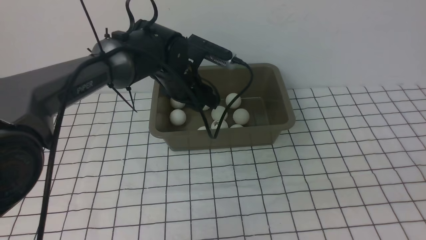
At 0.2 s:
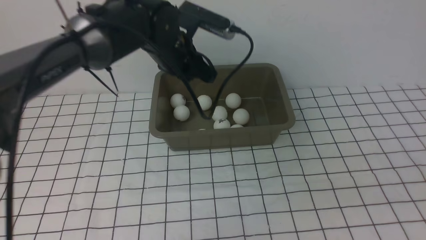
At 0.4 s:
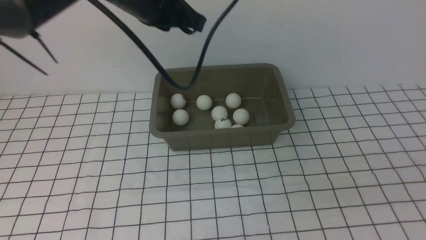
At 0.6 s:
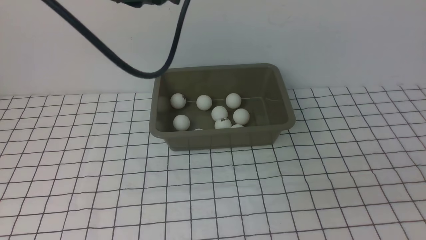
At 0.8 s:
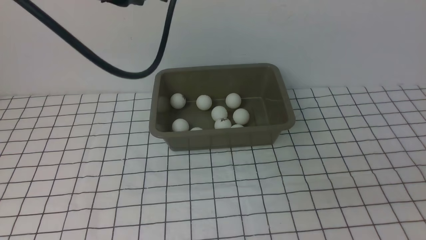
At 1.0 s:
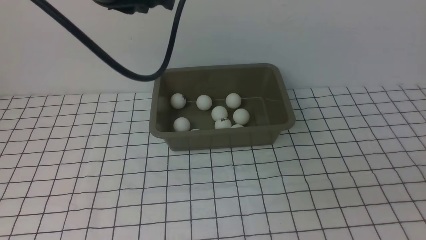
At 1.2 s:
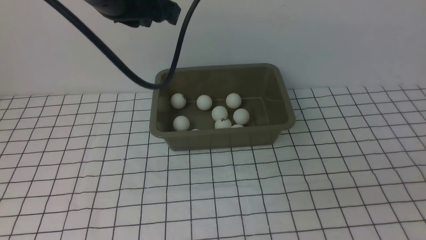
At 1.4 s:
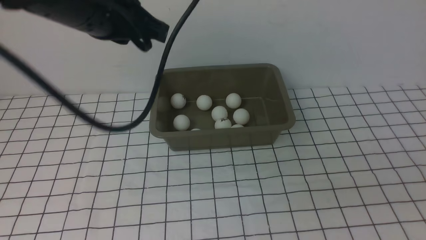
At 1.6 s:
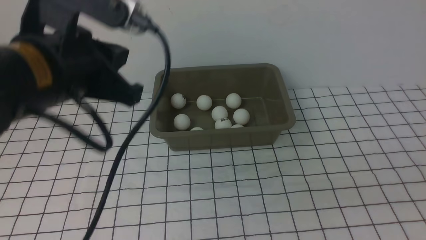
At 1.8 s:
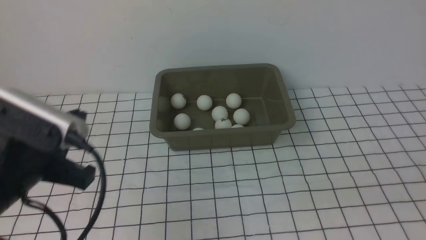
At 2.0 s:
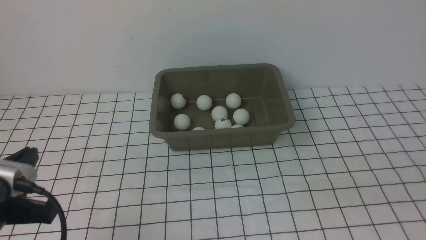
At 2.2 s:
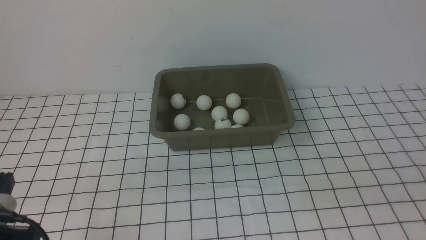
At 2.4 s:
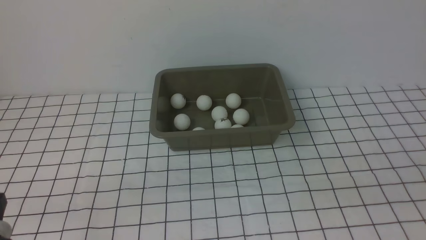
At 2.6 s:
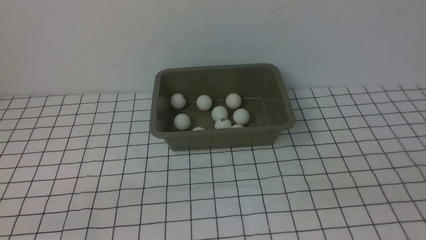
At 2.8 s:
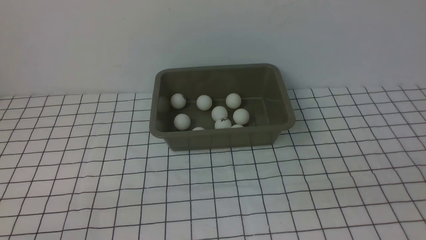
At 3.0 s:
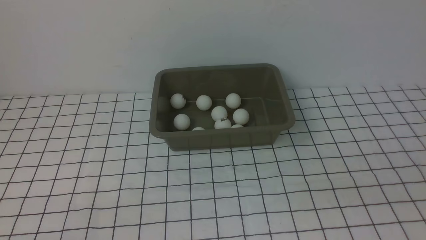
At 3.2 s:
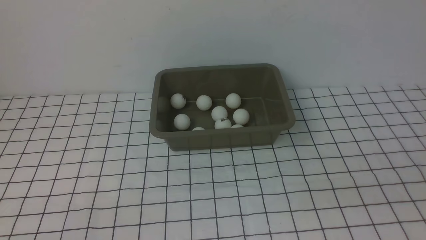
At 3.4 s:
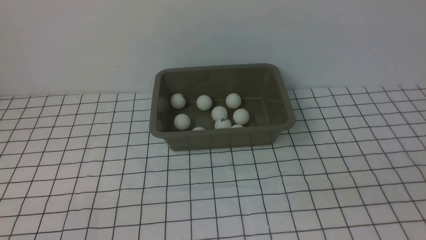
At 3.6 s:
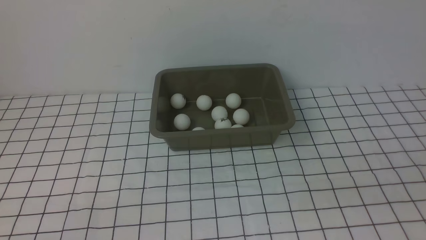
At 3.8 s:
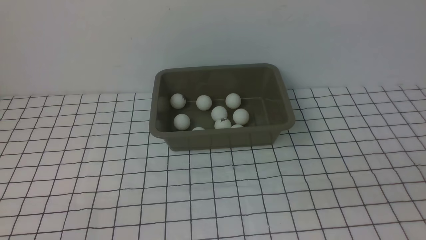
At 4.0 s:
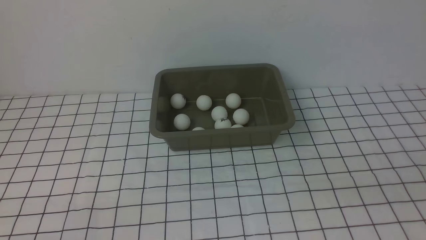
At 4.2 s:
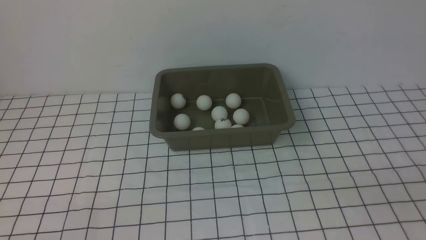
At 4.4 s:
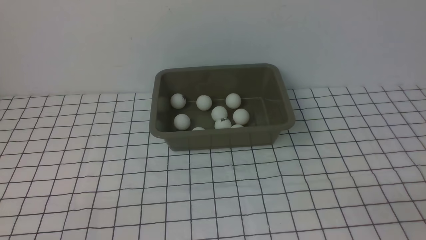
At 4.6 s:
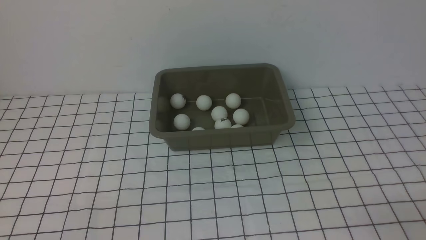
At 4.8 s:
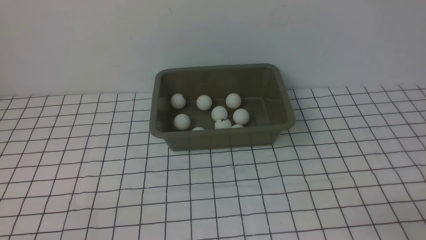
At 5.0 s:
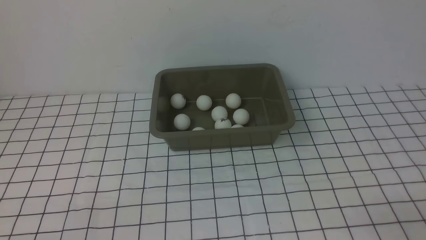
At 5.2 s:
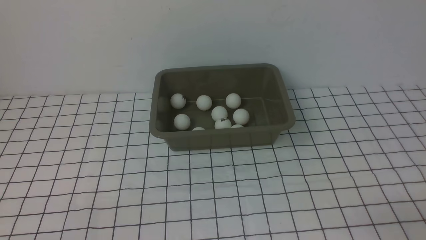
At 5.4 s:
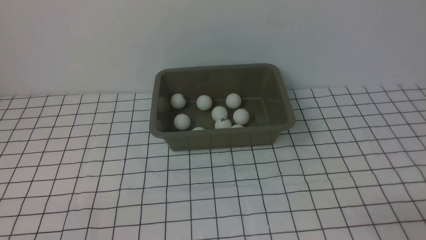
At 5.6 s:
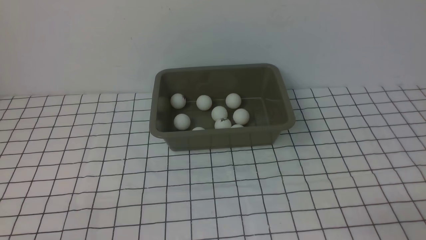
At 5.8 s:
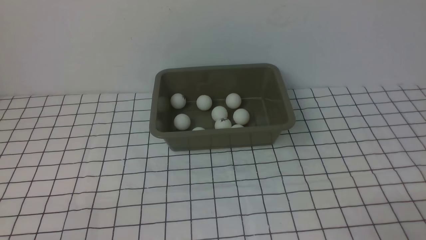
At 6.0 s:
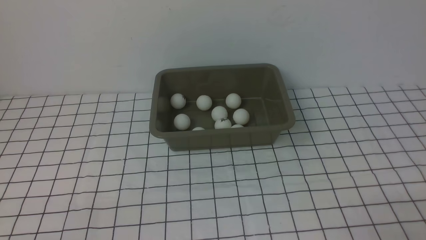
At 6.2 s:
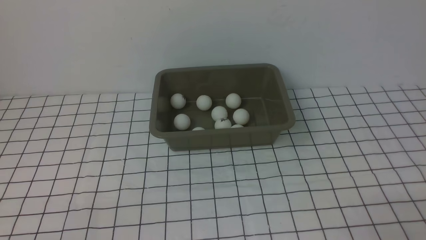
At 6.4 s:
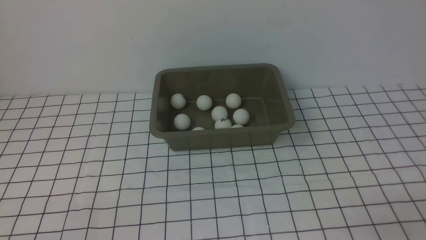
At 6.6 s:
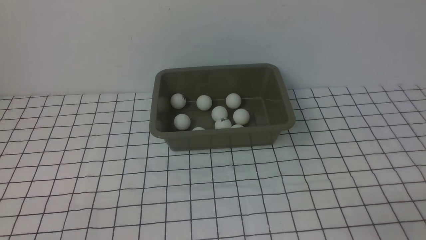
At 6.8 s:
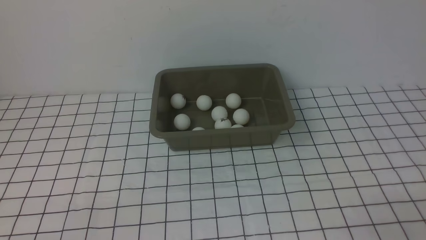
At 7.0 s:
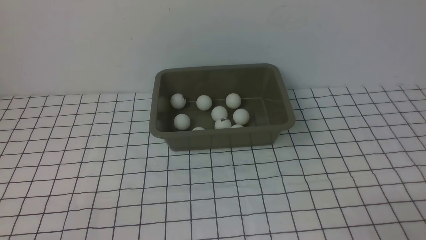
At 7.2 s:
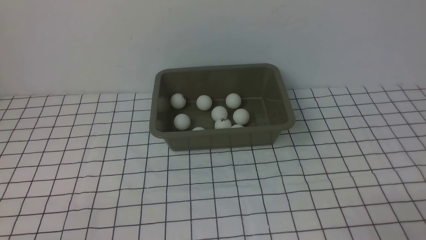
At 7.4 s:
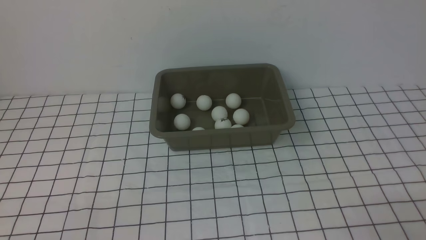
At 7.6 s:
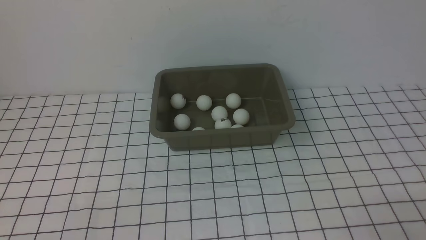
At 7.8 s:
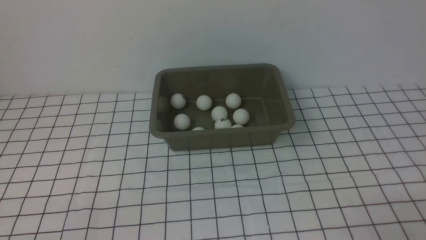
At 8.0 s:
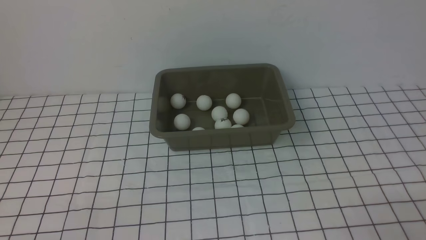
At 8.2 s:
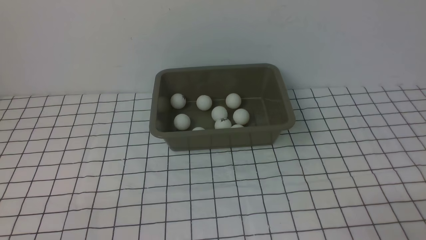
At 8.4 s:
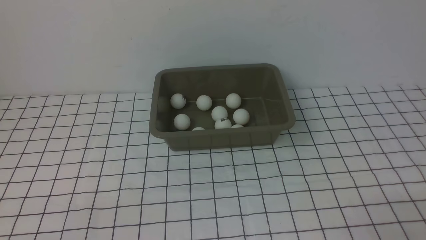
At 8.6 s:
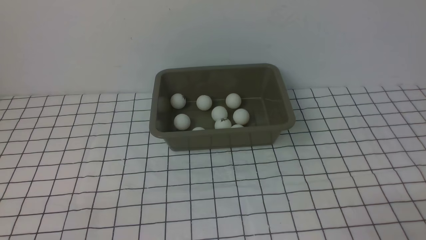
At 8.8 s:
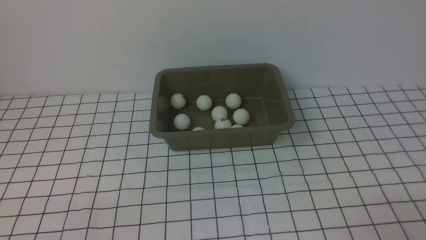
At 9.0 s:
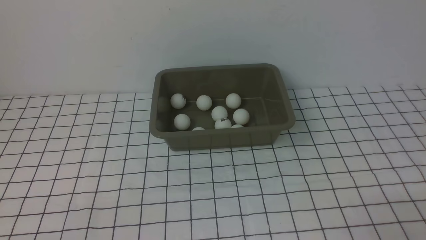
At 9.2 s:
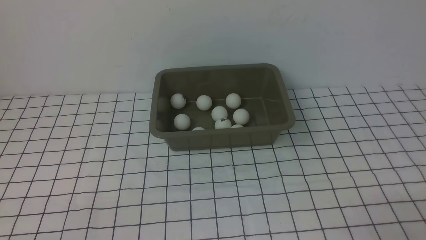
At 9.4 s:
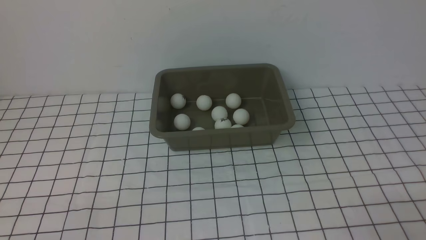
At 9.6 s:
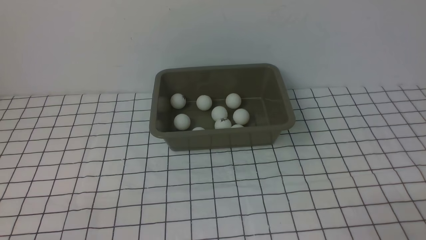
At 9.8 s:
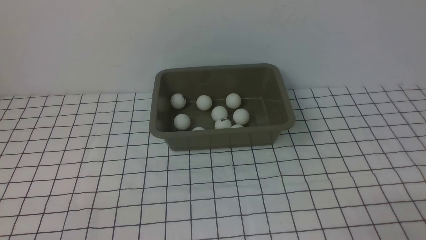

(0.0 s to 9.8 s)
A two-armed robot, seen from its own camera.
0.0 s - 1.4 s: The left gripper shifts approximately 35 cm backward, downward and to the left.
1.4 s - 2.8 s: The left gripper shifts some 10 cm downward and backward.
7.0 s - 9.8 s: Both grippers stay about where they are.
